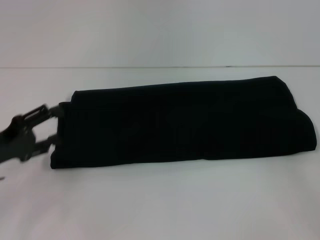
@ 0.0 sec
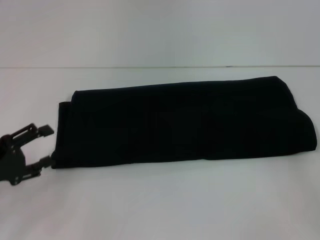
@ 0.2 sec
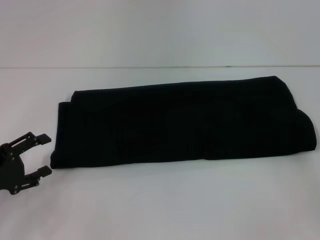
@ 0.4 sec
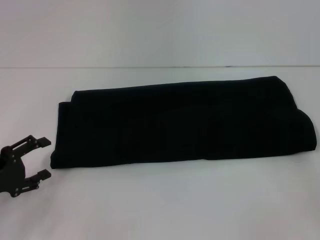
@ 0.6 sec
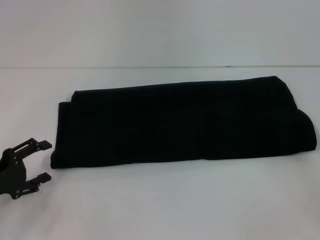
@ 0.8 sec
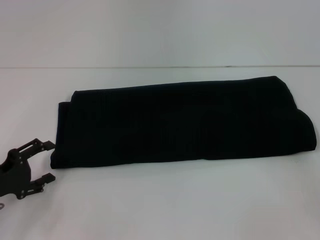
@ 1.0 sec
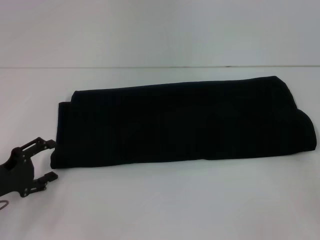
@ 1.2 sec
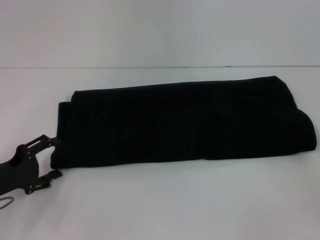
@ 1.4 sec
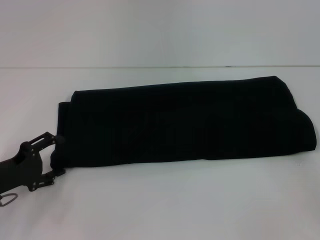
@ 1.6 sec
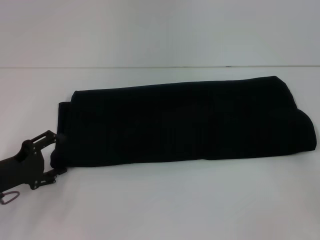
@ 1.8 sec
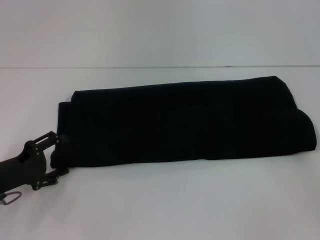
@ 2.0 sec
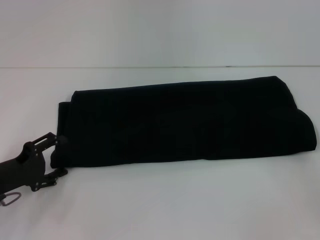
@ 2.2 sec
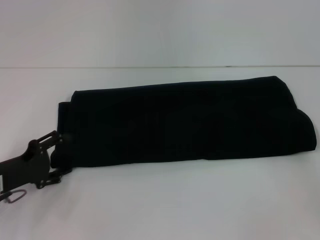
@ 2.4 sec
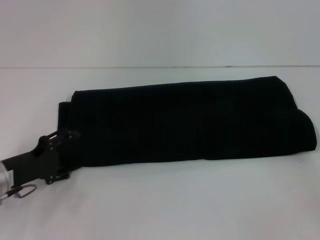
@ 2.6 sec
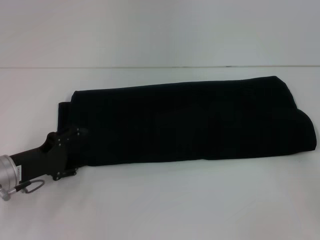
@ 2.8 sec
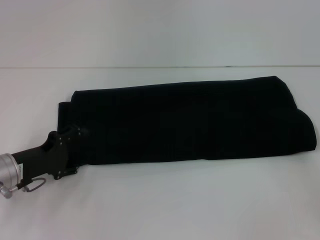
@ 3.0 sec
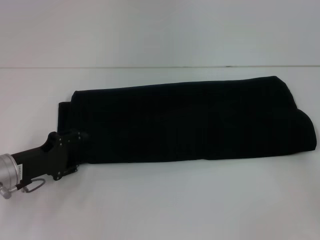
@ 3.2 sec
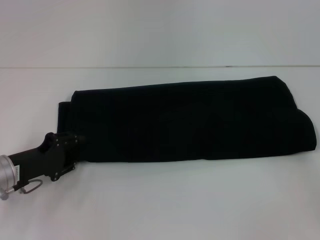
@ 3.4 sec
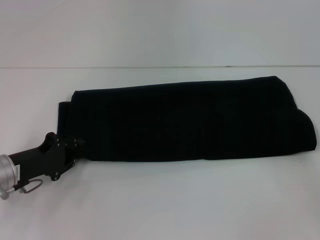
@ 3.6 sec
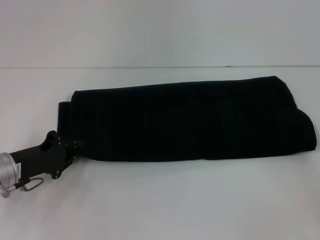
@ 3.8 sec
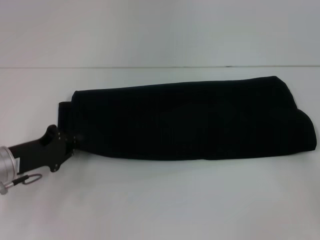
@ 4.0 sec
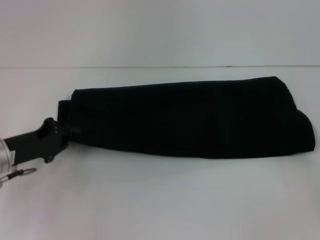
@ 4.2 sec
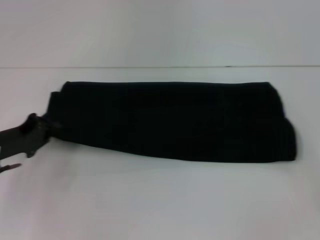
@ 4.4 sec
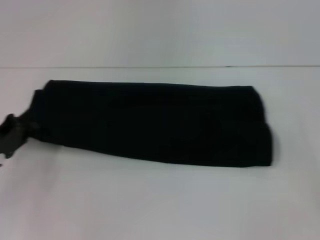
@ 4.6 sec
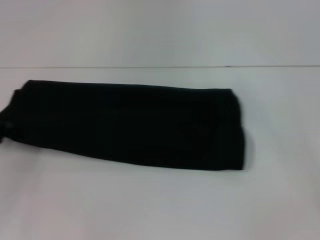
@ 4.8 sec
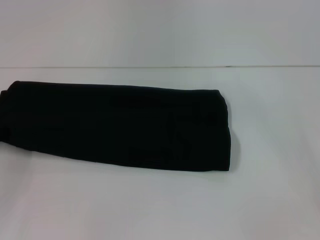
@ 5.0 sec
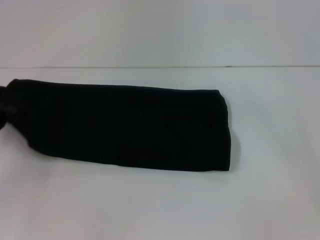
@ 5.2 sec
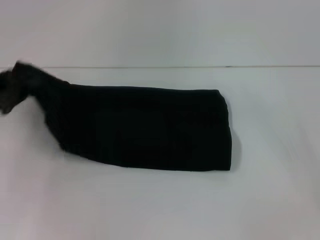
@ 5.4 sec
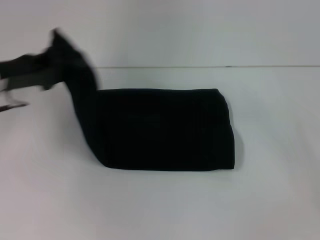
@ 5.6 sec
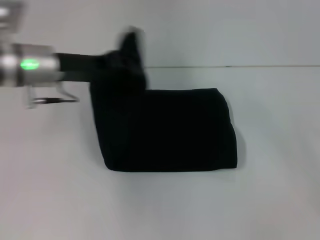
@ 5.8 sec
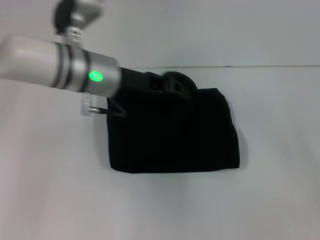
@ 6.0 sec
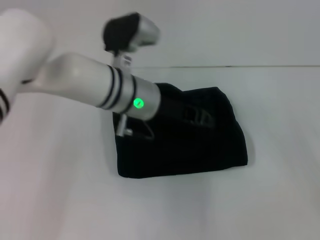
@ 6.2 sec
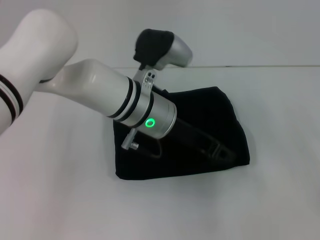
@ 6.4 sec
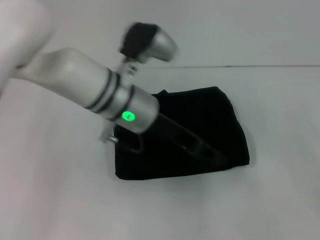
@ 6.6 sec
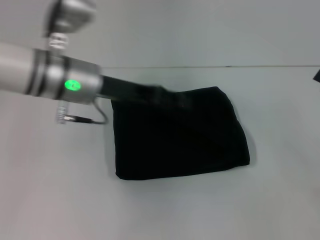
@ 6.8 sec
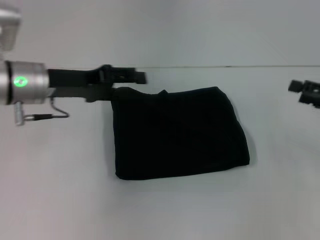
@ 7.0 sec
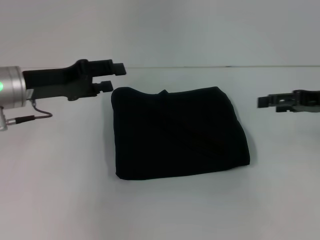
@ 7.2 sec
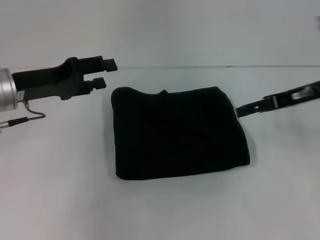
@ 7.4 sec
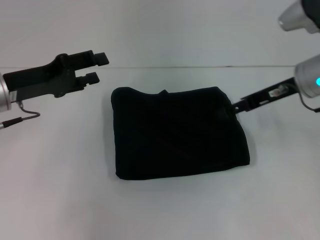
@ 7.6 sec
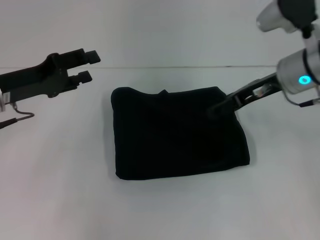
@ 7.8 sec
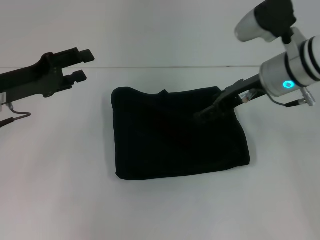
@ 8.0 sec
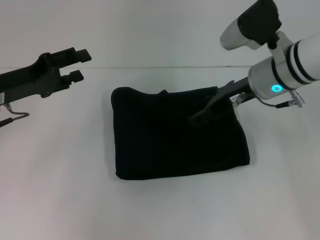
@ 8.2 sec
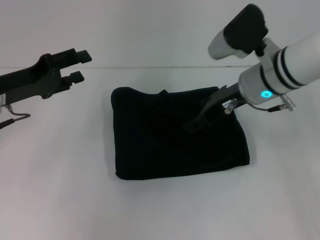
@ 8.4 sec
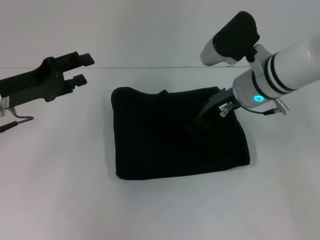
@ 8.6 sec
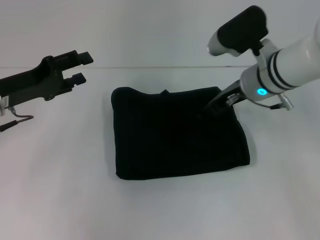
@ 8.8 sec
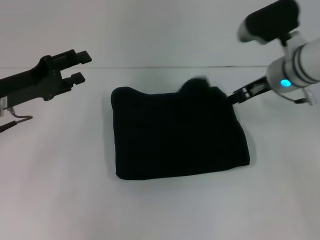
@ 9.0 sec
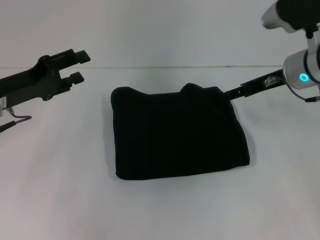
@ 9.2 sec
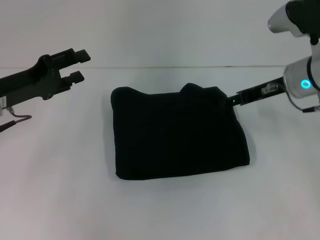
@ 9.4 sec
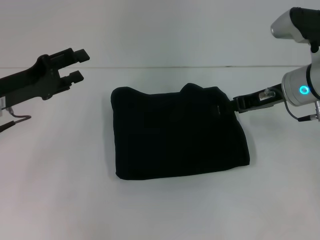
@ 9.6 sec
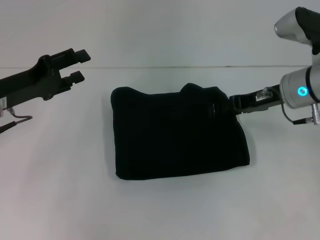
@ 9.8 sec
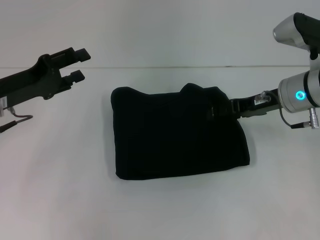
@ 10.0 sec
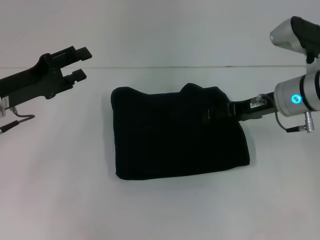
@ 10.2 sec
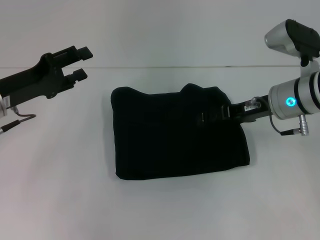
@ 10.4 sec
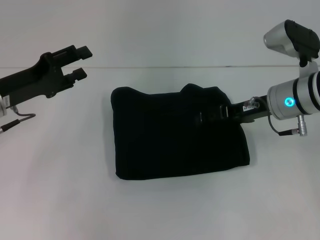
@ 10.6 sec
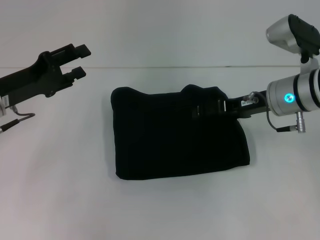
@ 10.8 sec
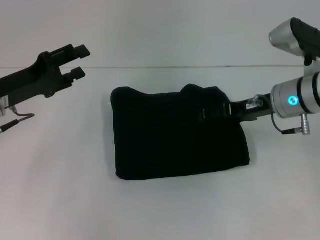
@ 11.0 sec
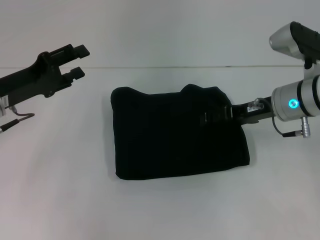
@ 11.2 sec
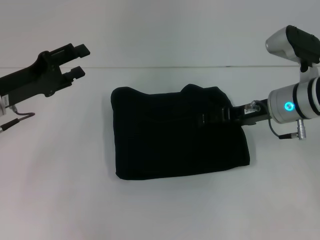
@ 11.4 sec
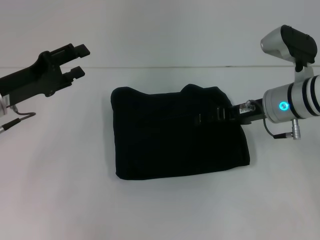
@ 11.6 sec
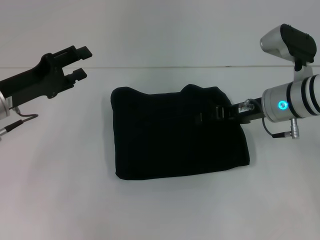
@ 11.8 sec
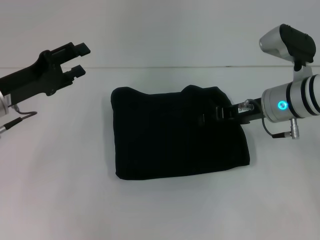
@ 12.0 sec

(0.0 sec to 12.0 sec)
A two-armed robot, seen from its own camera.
Step, 0.0 sec - 6.6 sec: Fold the clothes with your left hand.
1.6 sec - 3.0 sec: The grippers make only small movements.
3.0 sec - 4.4 sec: The left gripper closes its fingers.
4.4 sec - 6.0 sec: The left gripper heads to the right, upward and forward, covering about 25 cm.
6.0 sec - 7.6 sec: The left gripper goes approximately 15 cm to the left, and opens; the right gripper travels to the left, forward and upward by approximately 20 cm.
10.4 sec - 12.0 sec: Both grippers stay put.

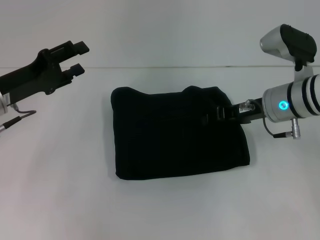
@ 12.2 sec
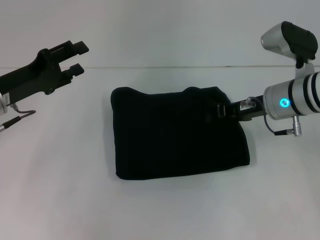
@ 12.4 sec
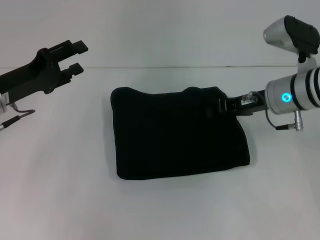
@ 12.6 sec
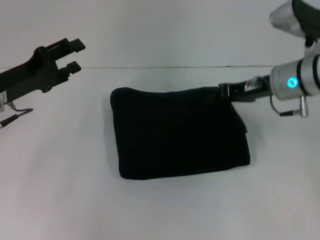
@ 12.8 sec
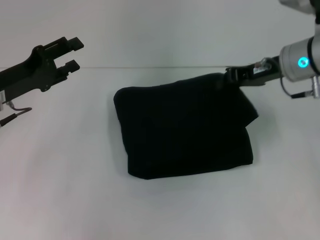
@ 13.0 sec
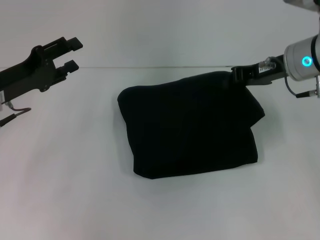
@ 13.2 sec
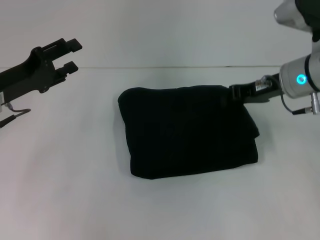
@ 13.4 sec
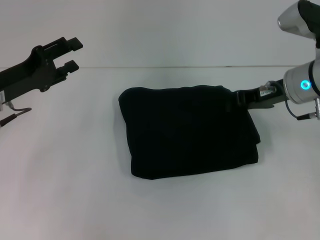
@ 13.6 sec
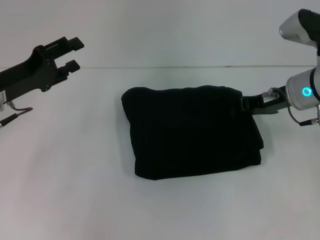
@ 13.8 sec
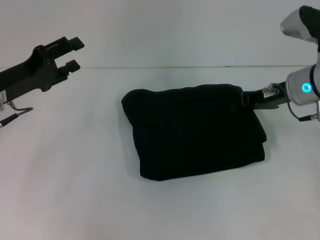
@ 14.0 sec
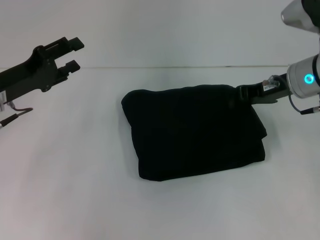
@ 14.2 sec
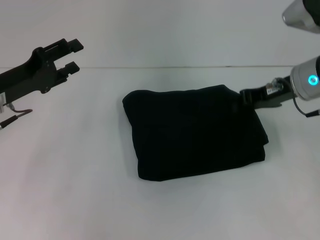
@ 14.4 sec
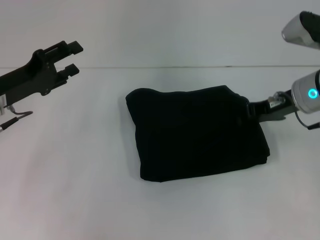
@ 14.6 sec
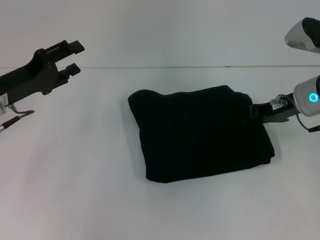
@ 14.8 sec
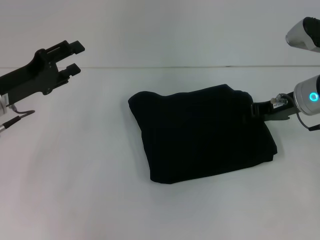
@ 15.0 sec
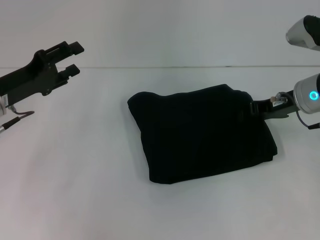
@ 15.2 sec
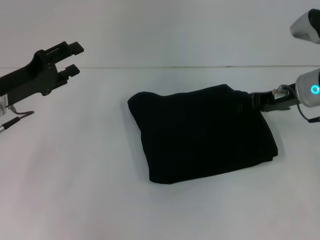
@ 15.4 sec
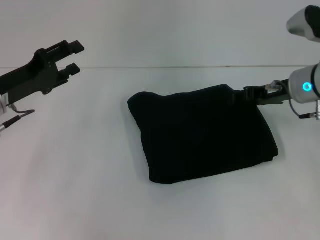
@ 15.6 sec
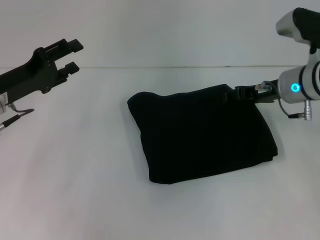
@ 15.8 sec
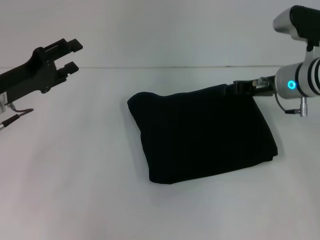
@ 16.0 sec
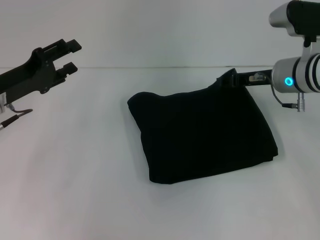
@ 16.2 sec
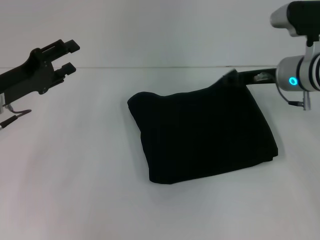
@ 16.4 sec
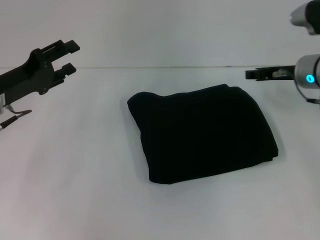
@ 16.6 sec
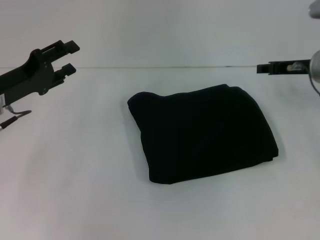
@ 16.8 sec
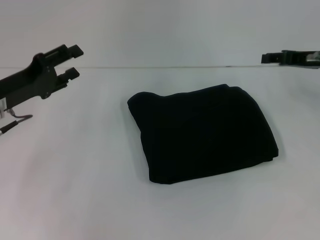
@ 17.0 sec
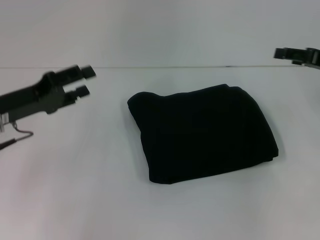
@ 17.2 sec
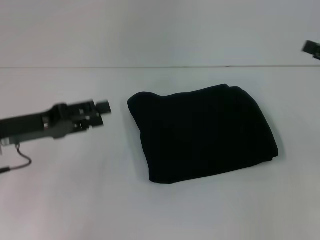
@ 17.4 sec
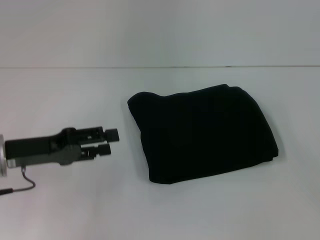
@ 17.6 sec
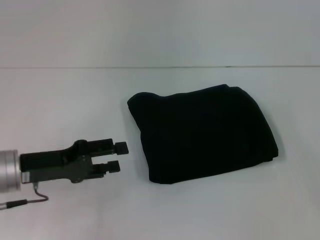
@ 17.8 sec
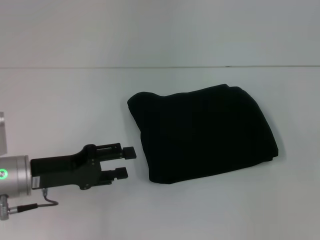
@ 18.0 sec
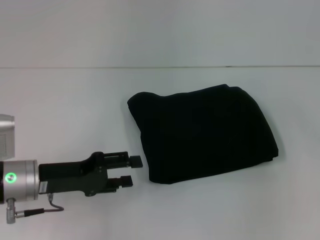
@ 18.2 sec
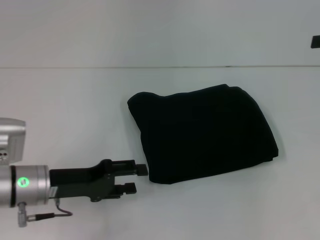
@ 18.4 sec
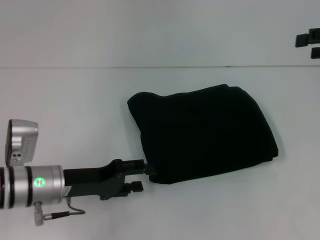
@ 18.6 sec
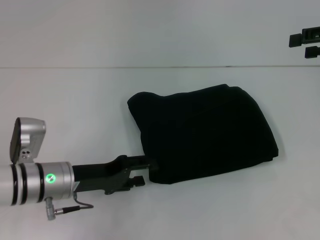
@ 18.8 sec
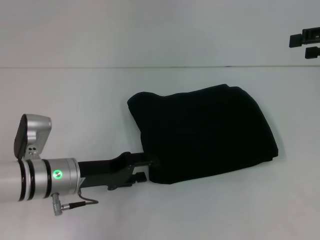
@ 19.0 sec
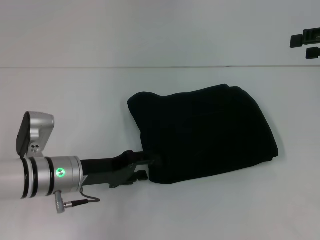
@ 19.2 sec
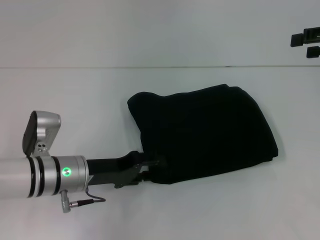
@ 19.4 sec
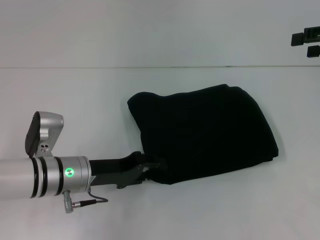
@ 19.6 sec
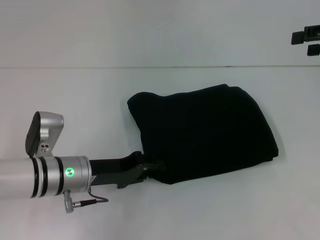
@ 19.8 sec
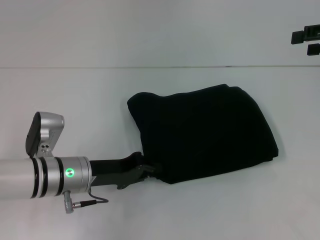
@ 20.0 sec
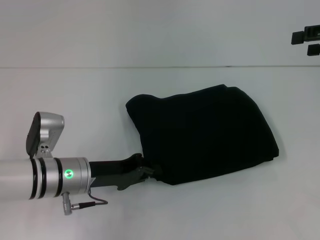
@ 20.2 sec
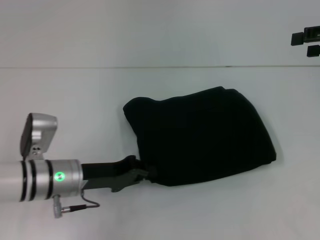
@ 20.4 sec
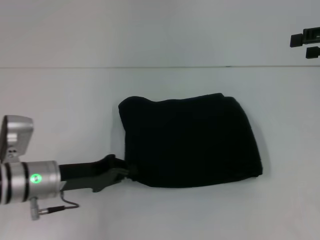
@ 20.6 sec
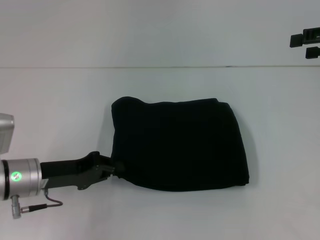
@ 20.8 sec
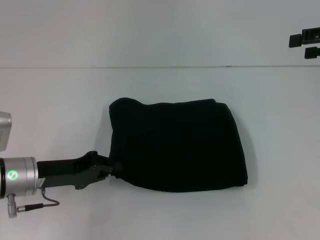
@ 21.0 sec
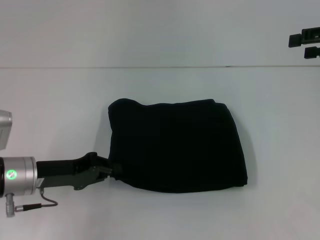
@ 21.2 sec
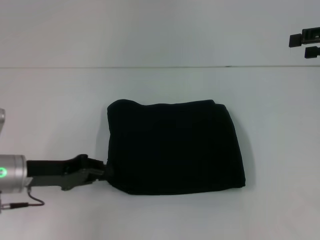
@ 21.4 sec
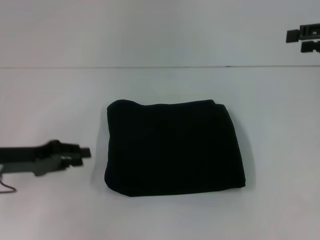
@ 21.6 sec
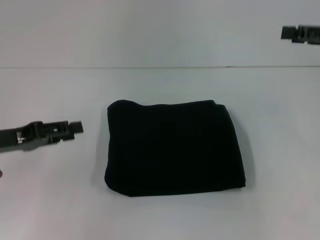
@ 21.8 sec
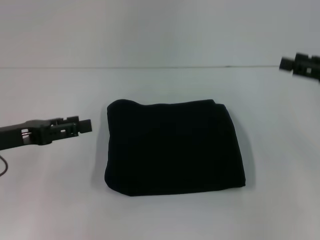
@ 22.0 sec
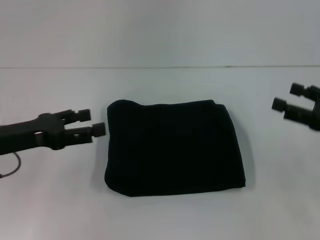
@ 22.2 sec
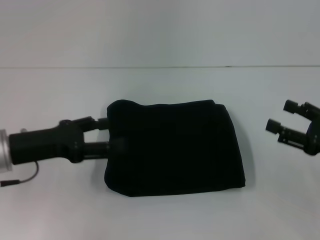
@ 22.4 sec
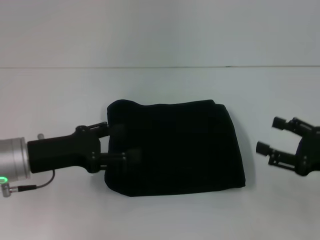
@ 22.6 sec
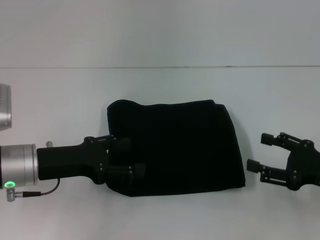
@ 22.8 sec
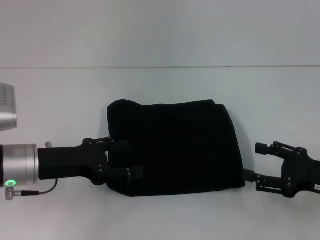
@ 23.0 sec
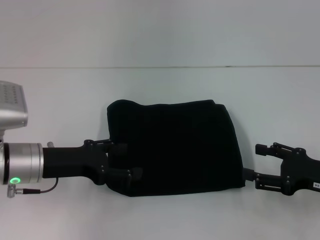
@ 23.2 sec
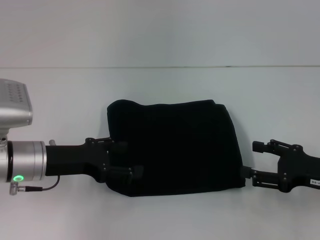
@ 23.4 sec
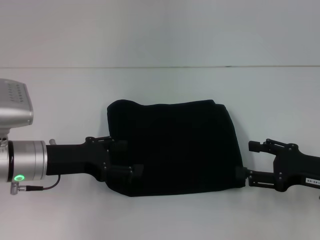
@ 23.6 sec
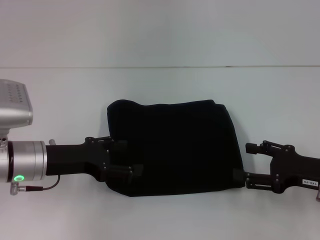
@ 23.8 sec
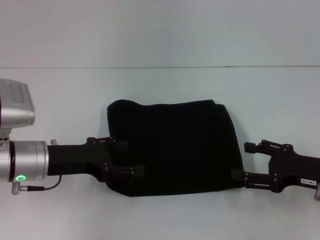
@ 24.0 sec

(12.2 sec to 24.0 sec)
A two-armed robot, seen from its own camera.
12.2 sec - 13.6 sec: The right gripper closes its fingers.
13.6 sec - 15.2 sec: The grippers make only small movements.
15.2 sec - 16.6 sec: The right gripper opens.
16.6 sec - 18.2 sec: The right gripper moves to the right, backward and upward, some 20 cm; the left gripper heads backward and to the right, covering roughly 10 cm.
18.2 sec - 19.6 sec: The left gripper moves to the right, approximately 5 cm; the right gripper moves approximately 10 cm.
19.6 sec - 21.0 sec: The left gripper travels to the left by about 5 cm, and closes its fingers.
21.0 sec - 22.6 sec: The right gripper heads downward and backward, covering roughly 20 cm; the left gripper opens up.
22.6 sec - 24.0 sec: The grippers stay close to where they were, moving slightly.
